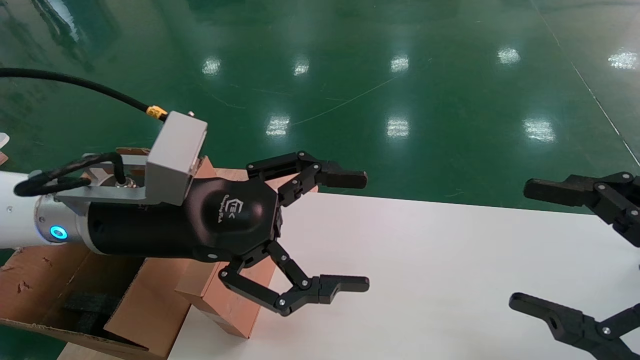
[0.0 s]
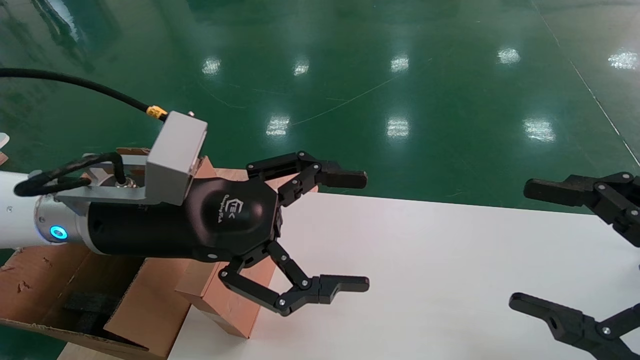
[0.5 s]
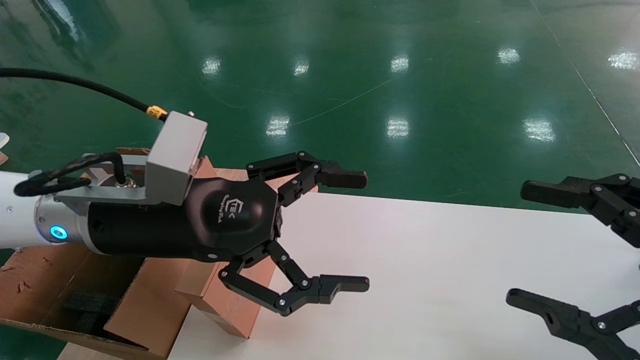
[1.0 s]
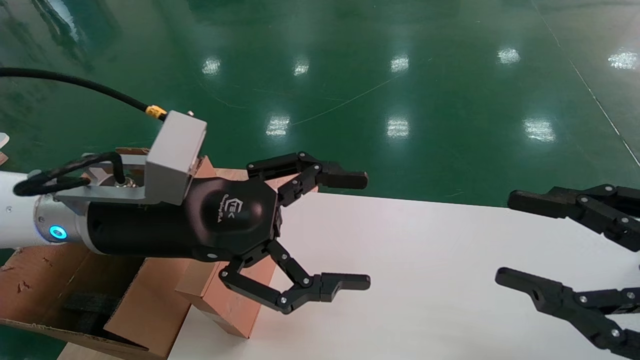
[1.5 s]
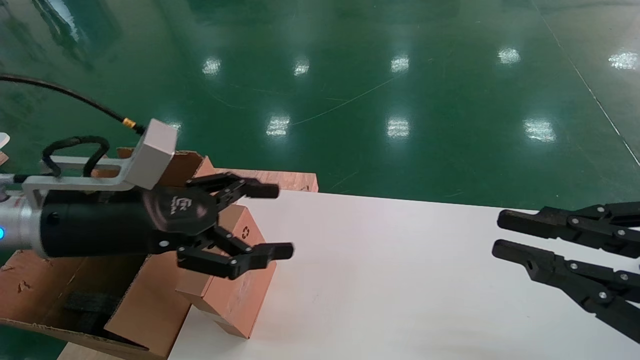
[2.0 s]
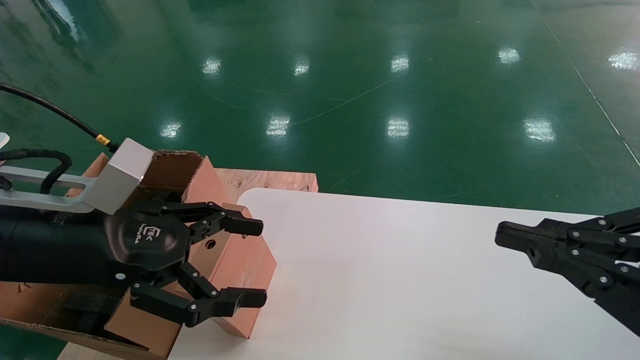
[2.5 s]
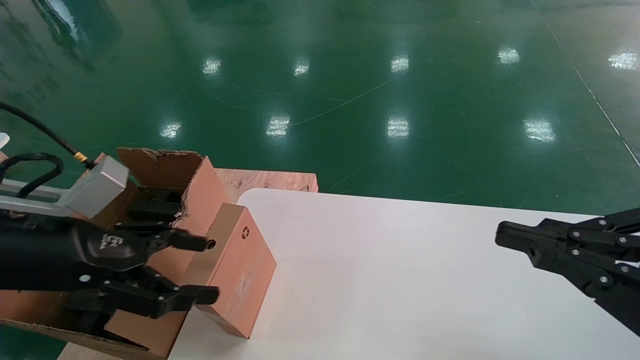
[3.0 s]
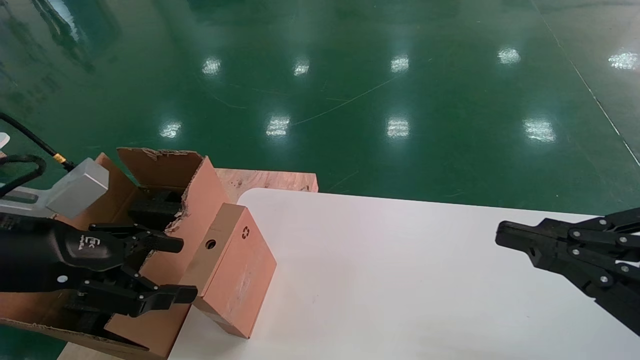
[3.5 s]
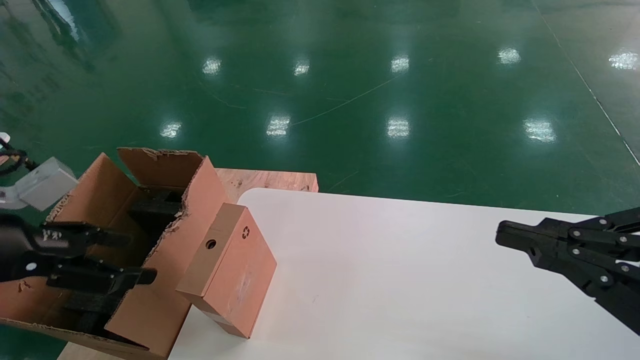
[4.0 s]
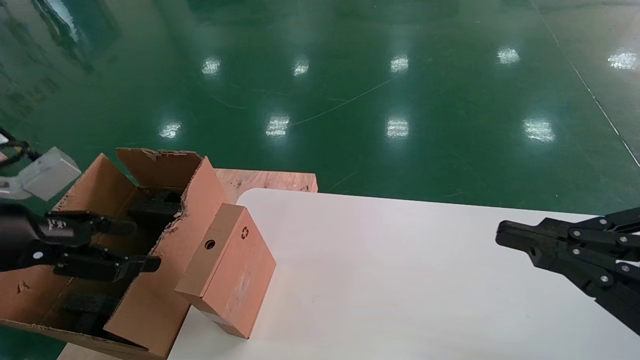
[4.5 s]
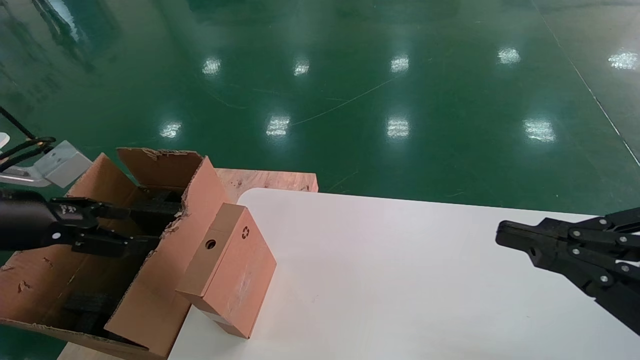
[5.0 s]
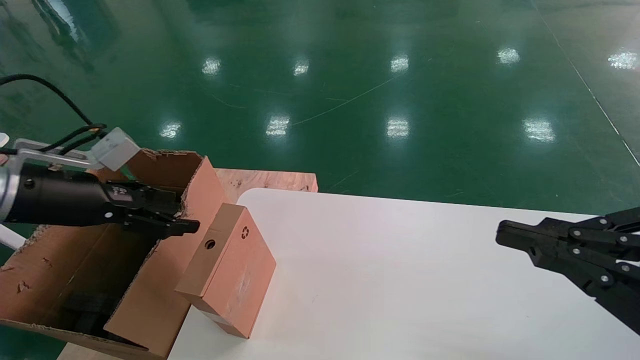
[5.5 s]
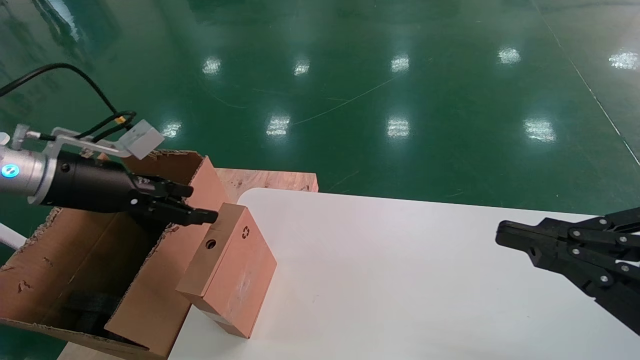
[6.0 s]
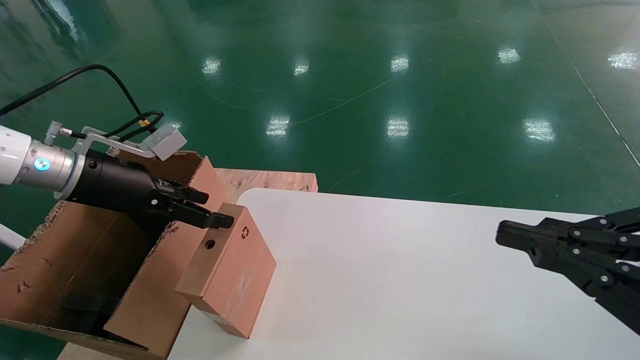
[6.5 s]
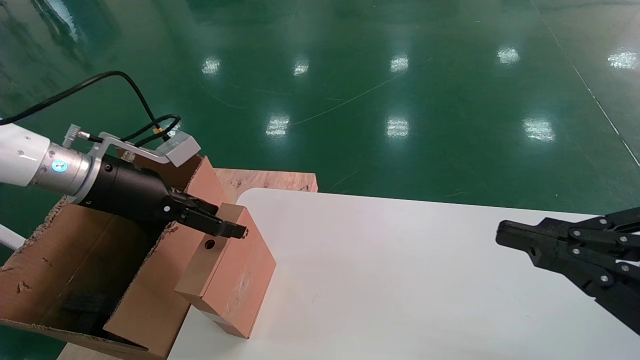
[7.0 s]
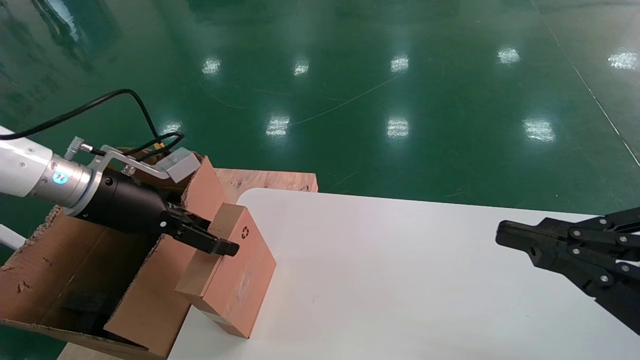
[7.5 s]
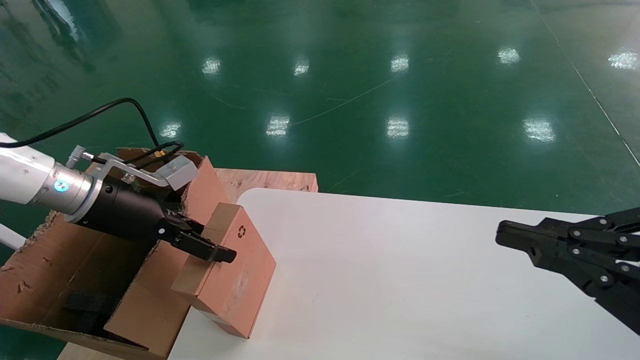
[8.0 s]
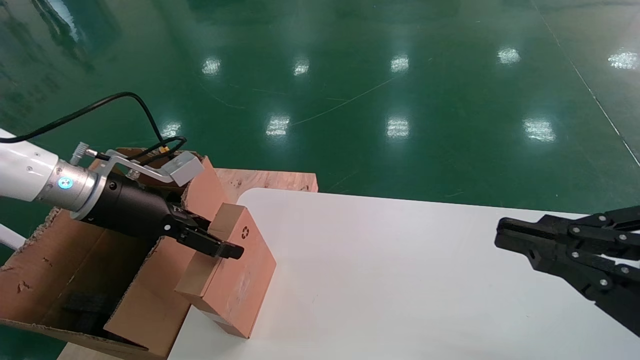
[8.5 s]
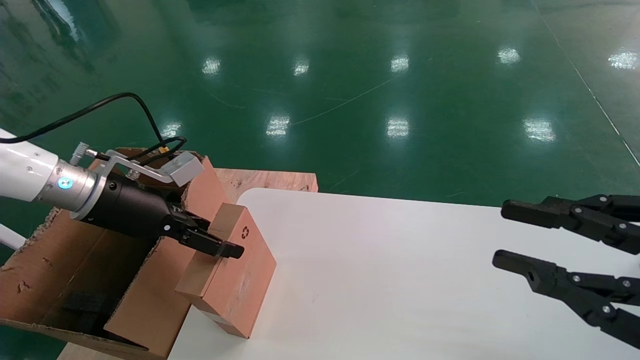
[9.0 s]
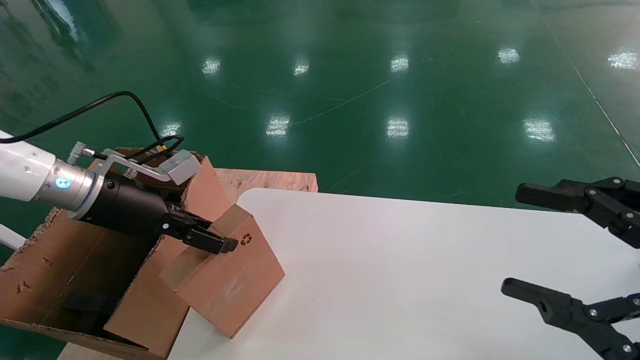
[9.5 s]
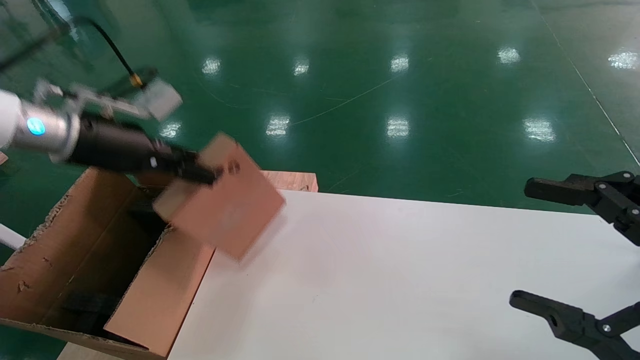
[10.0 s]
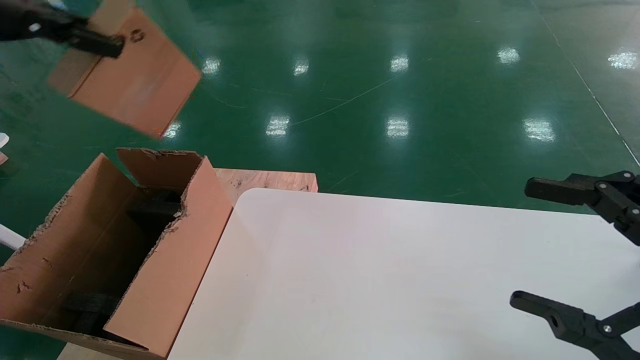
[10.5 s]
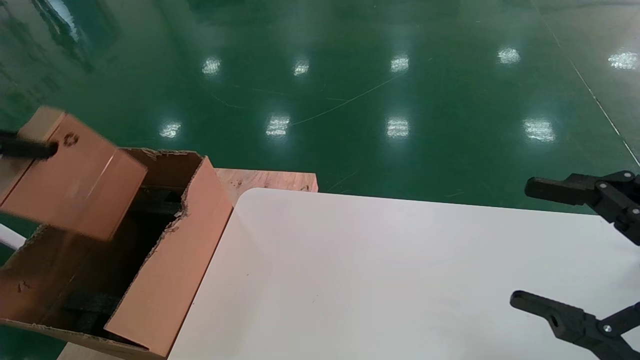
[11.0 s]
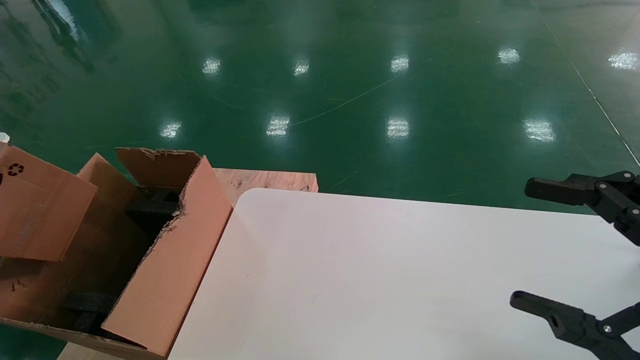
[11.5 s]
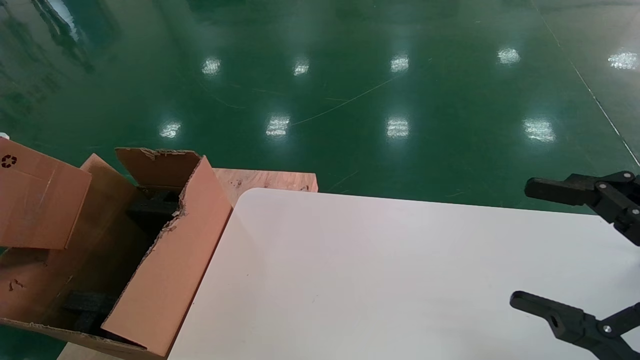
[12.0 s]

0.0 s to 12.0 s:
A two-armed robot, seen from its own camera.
Task of the whole recording: place the small box on the table into the large box on the left.
Step, 2.0 to 9.5 s: Pick up the mouse and the power cord paper box.
0.0 to 2.0 s: The right gripper closes up; the left gripper heads to the left, covering approximately 5 cm.
2.0 to 4.0 s: The left gripper heads to the left and backward, covering some 15 cm.
4.0 to 6.0 s: The left gripper moves forward, approximately 15 cm.
6.0 to 8.0 s: The grippers make only small movements.
8.0 to 10.0 s: The right gripper opens its fingers, while the left gripper heads upward, covering some 10 cm, and closes up.
10.0 to 12.0 s: The left gripper goes some 30 cm to the left and backward.

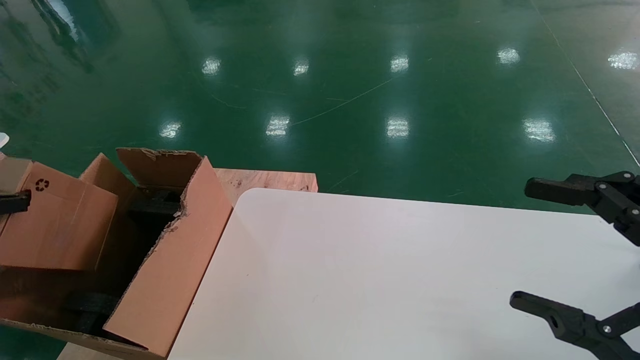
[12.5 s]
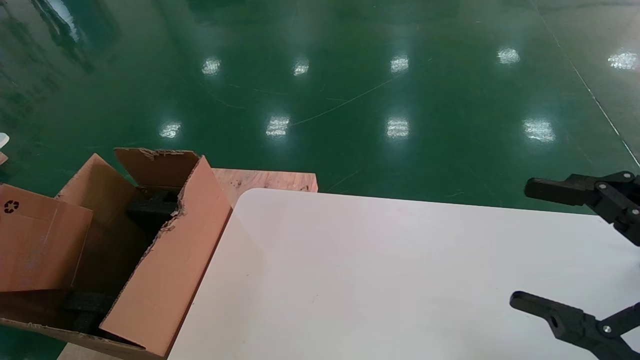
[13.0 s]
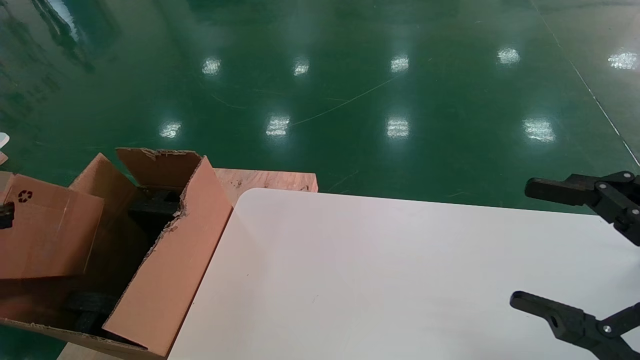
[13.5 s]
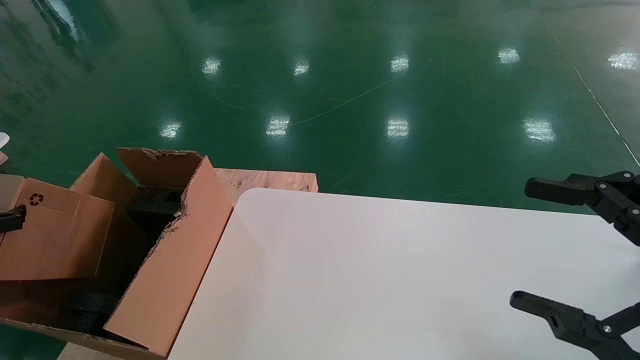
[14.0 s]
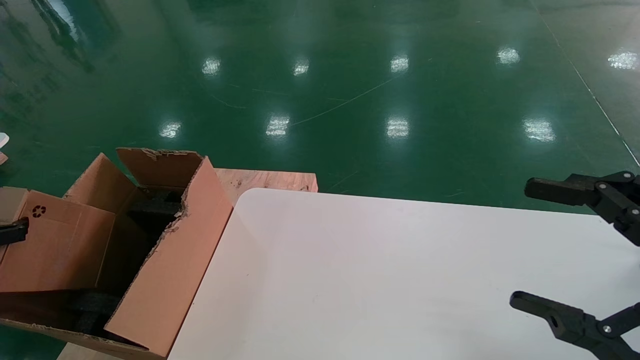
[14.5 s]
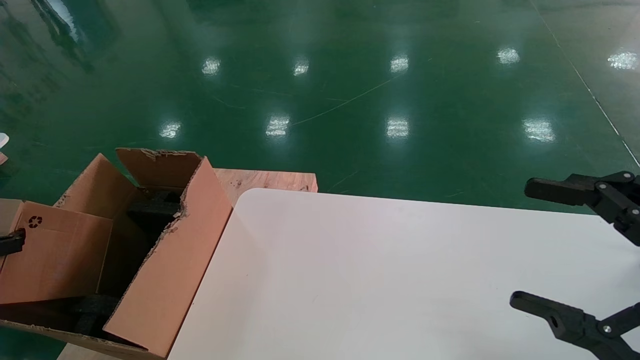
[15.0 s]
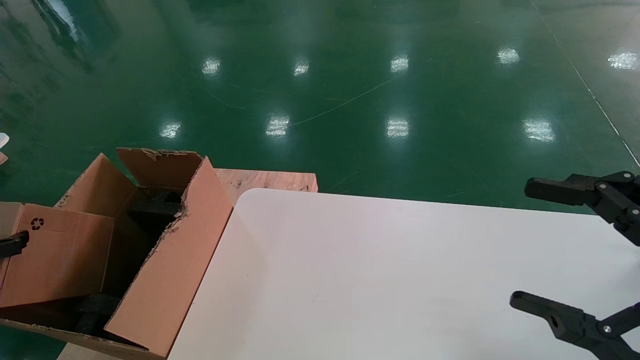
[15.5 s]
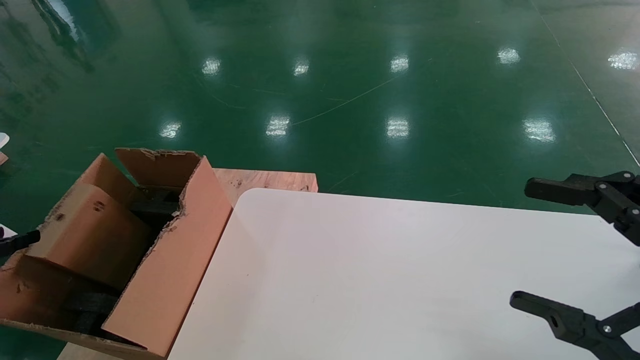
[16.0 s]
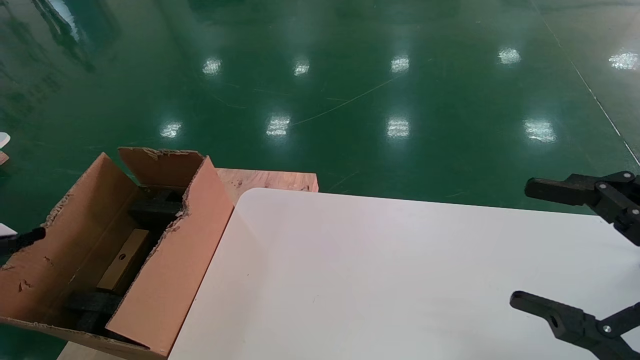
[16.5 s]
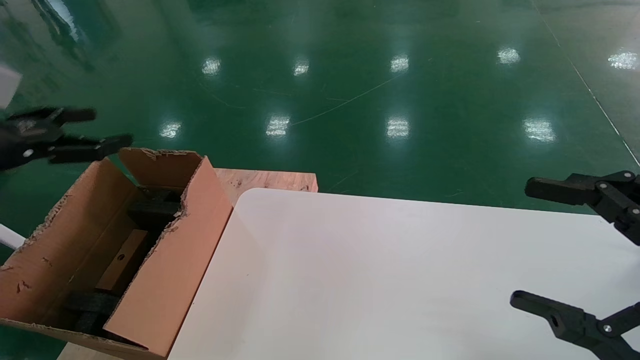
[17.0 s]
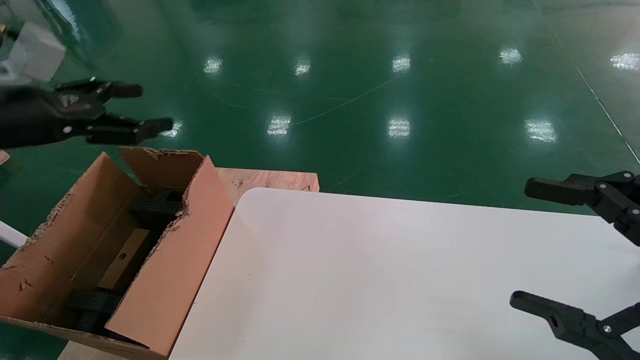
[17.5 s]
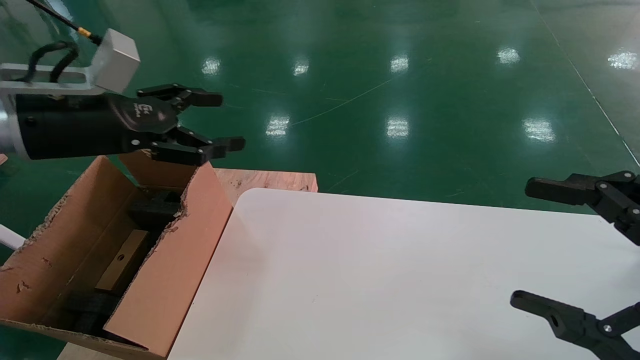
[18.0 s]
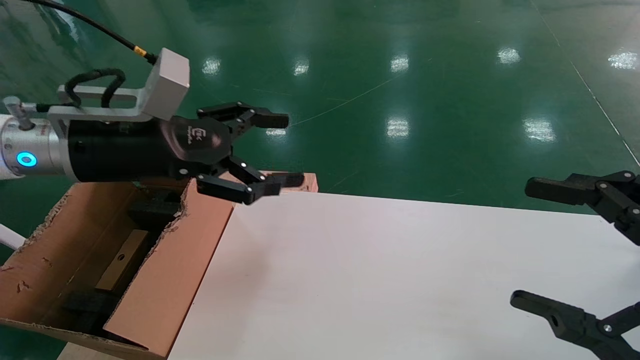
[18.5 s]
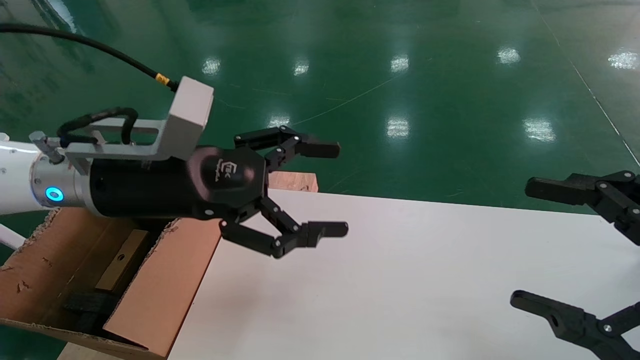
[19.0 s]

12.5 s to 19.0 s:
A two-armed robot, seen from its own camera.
Task of the whole recording: place the small box on the table into the large box on the left.
Step, 12.5 to 16.5 s: Place the mouse and the power cord paper box into the container.
12.5 to 14.5 s: The left gripper goes roughly 5 cm downward.
14.5 to 17.0 s: The left gripper travels upward, to the right and forward by approximately 15 cm, and opens.
17.0 to 19.0 s: The left gripper heads to the right, covering some 25 cm.
